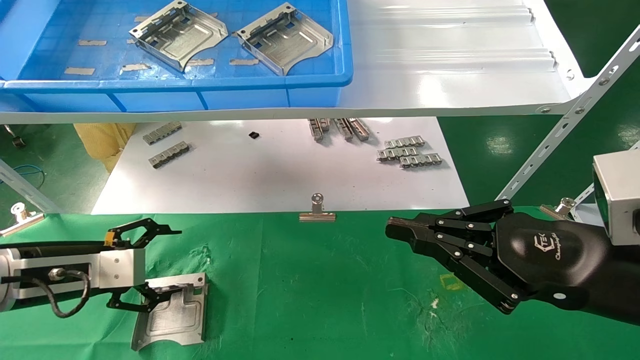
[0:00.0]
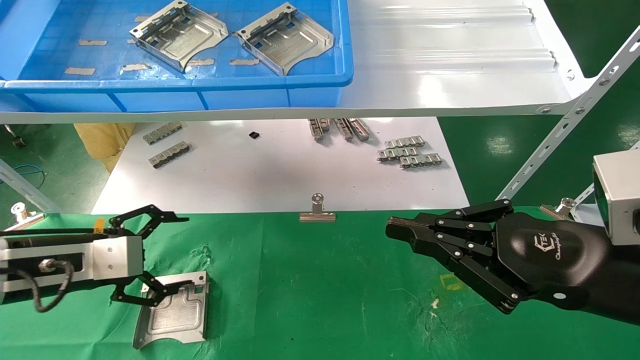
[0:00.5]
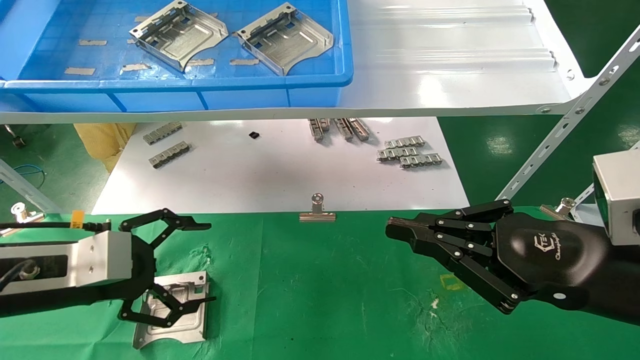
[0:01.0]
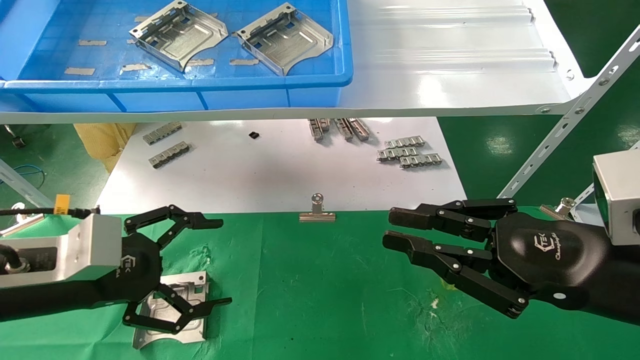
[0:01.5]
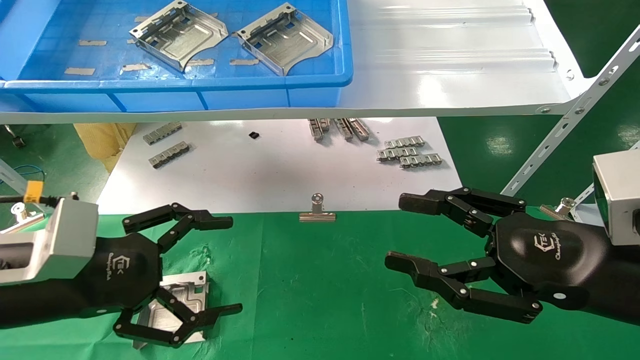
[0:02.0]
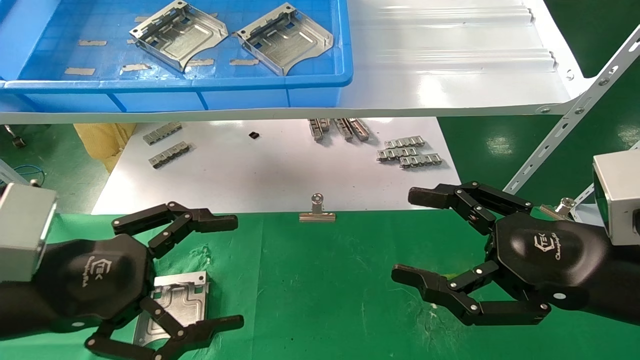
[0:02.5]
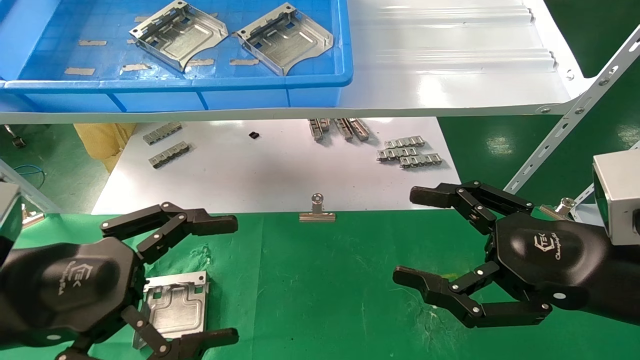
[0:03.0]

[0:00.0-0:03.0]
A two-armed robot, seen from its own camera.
Task of the whole recording: use the mechanical arm to pick up the parts and place them on the table.
0:00.0 to 0:01.5: The left gripper heads backward and to the right, covering about 10 cm.
0:01.5 to 0:03.0: The right gripper opens up. The left gripper moves backward, some 5 cm.

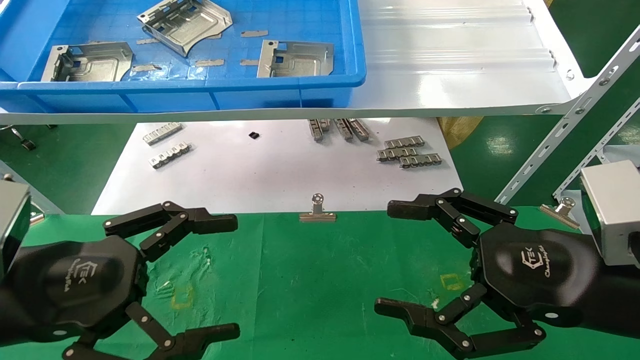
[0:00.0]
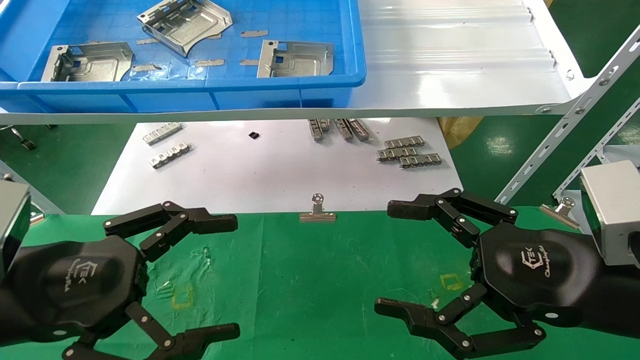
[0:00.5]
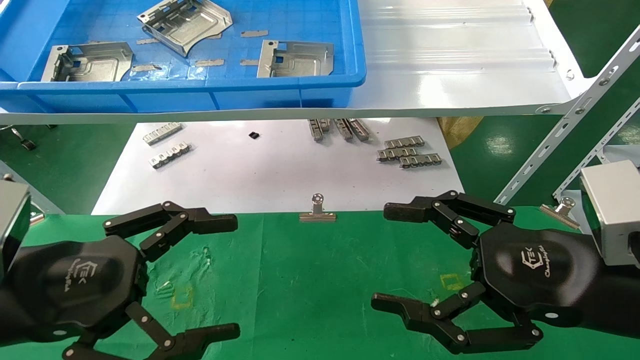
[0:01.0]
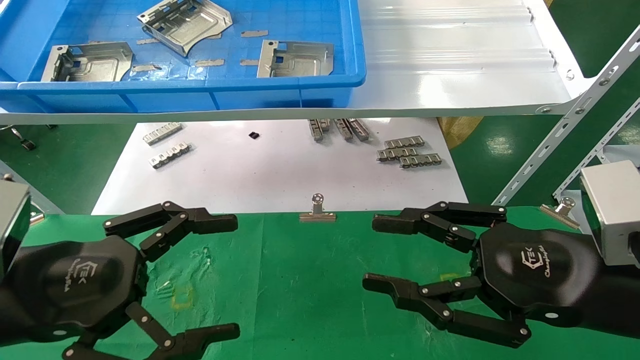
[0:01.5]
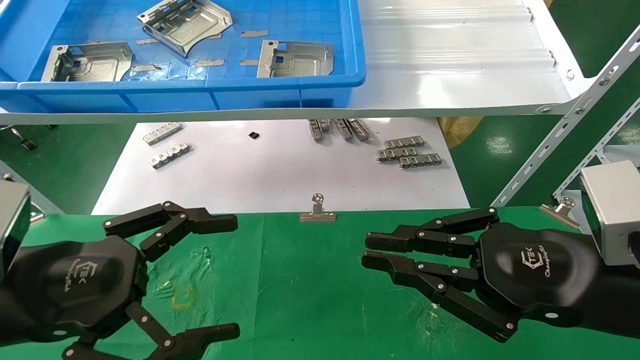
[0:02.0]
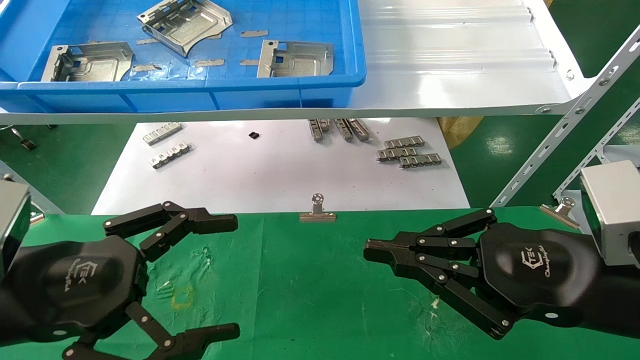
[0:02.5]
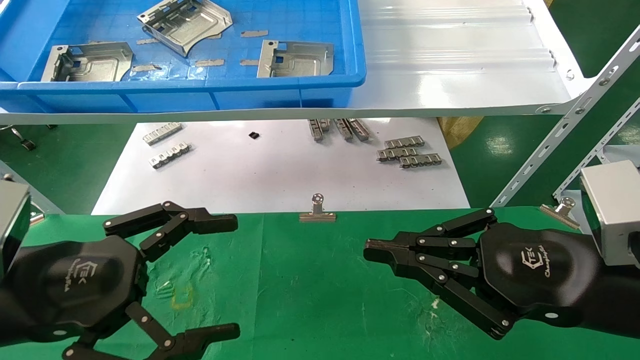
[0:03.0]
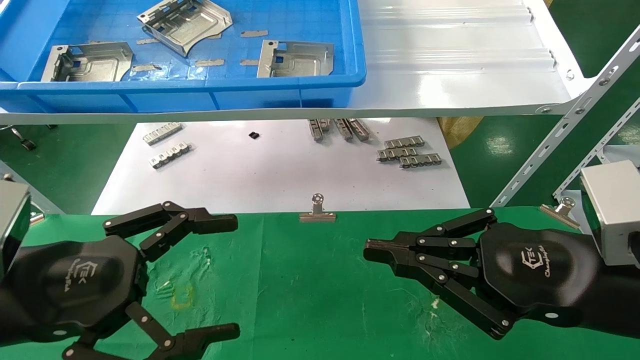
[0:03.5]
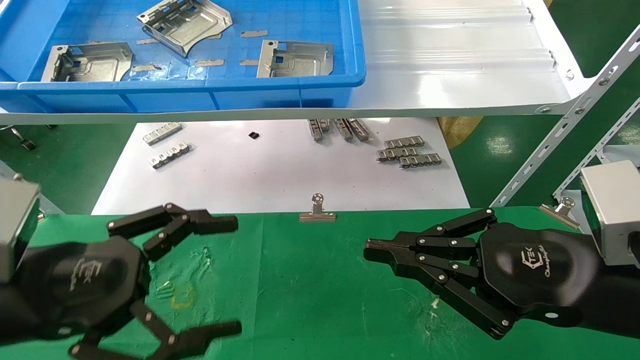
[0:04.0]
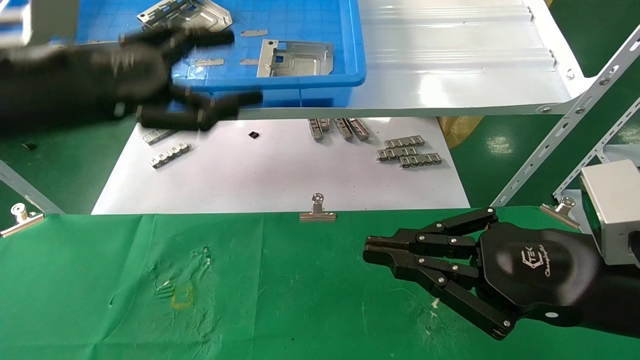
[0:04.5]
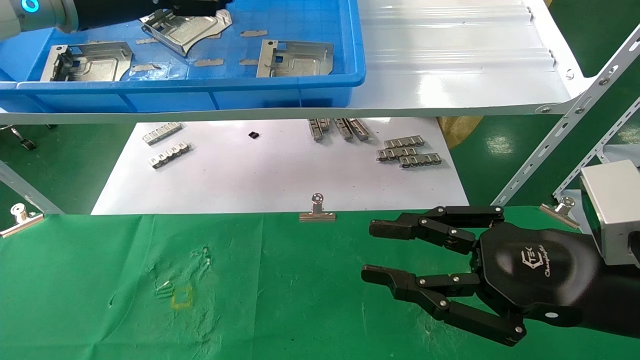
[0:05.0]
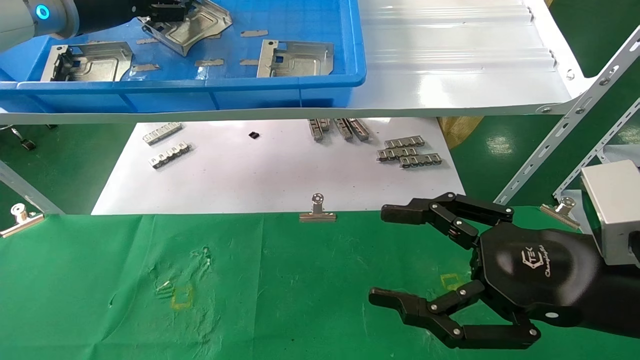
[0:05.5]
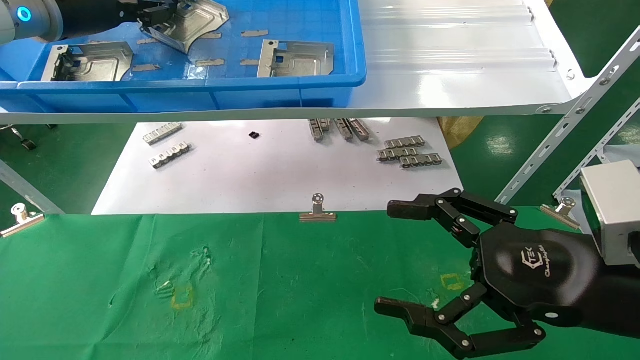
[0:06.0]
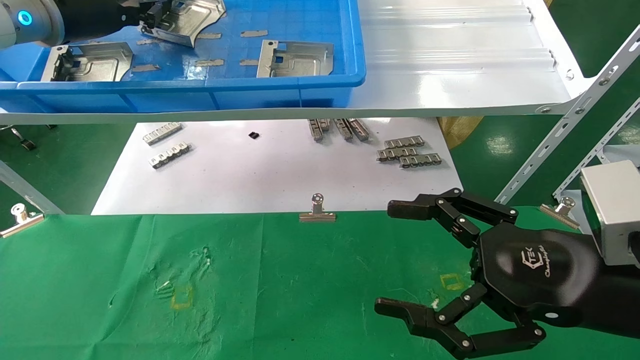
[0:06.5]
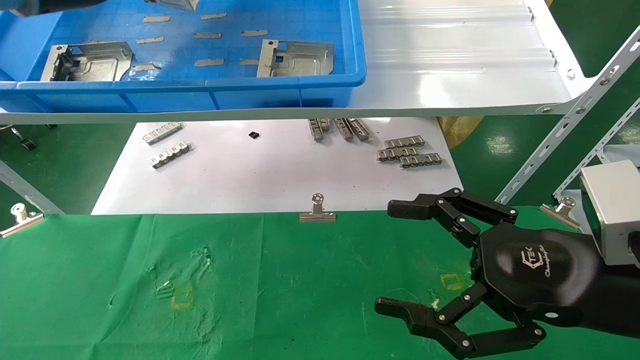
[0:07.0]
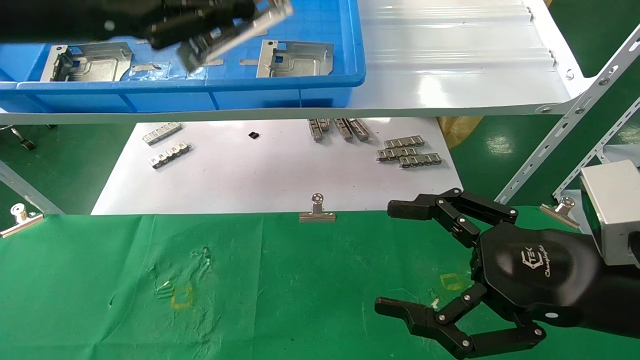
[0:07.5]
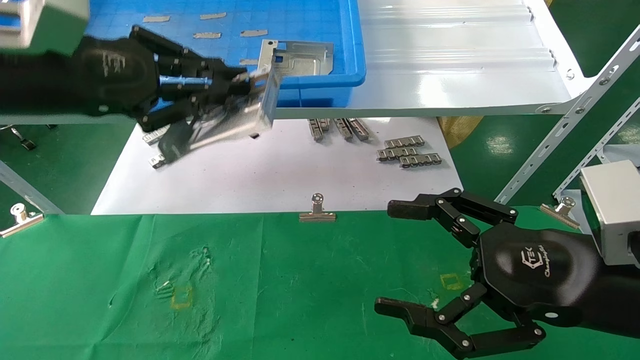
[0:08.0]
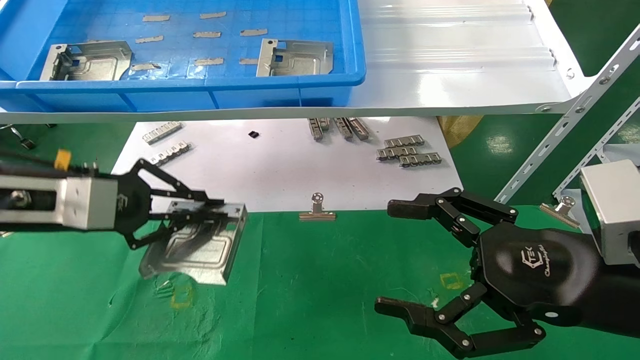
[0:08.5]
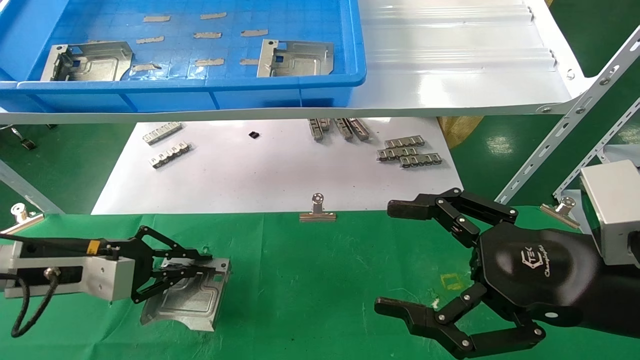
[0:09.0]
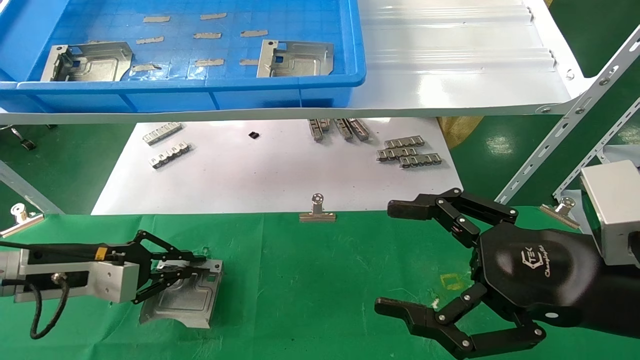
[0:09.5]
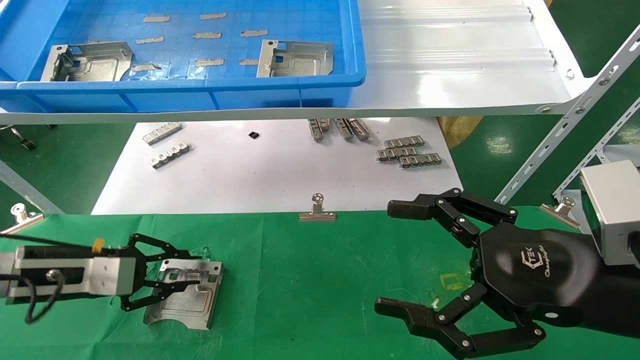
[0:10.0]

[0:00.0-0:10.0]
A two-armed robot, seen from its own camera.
Task of the whole recording: use the mechanical arm to pick up the parts and place them on the table.
Step, 0:04.5 to 0:06.5: Pick up the hard drive bracket from the feeding area.
Step, 0:07.0 to 0:09.5: Place the hard drive bracket into the box.
0:00.0 to 0:02.0: The right gripper closes.
0:02.0 to 0:04.0: The grippers move only a little.
0:04.0 to 0:06.0: The left gripper moves forward and upward, some 30 cm, and closes, while the right gripper opens its fingers.
0:06.0 to 0:08.0: The left gripper travels backward and downward by approximately 15 cm, and closes its fingers.
0:08.0 to 0:10.0: The left gripper travels downward by approximately 25 cm.

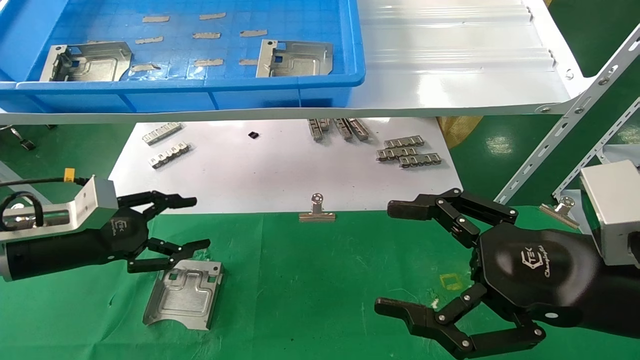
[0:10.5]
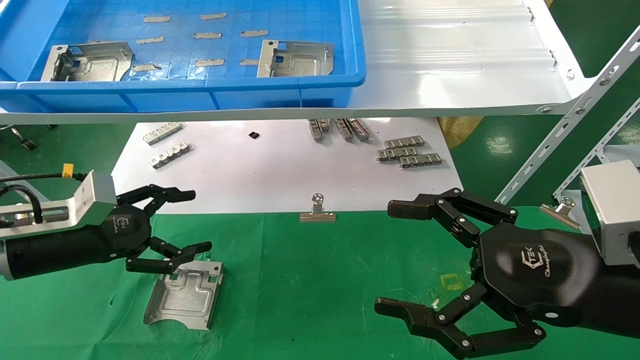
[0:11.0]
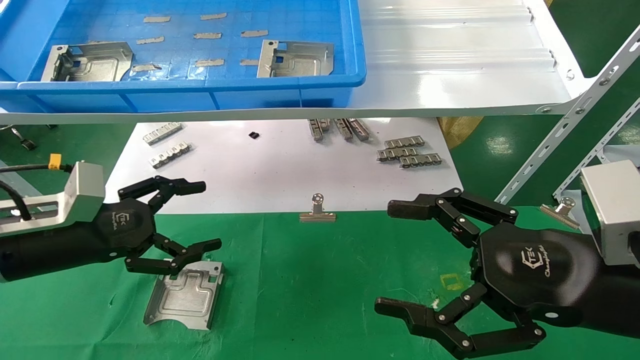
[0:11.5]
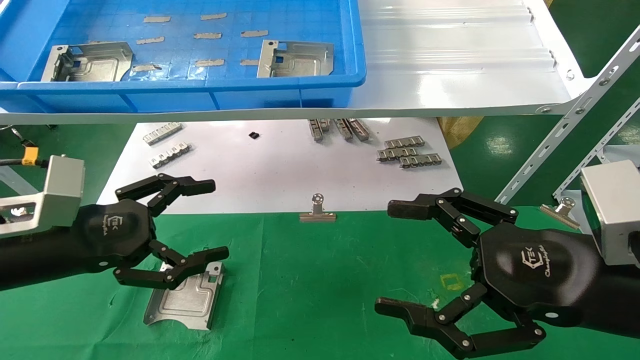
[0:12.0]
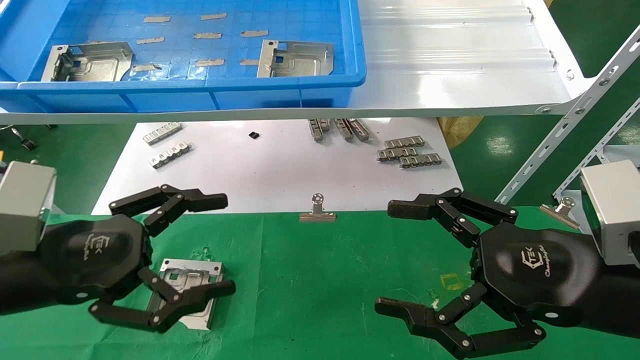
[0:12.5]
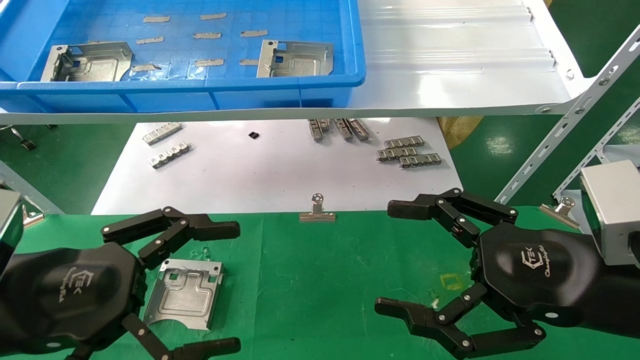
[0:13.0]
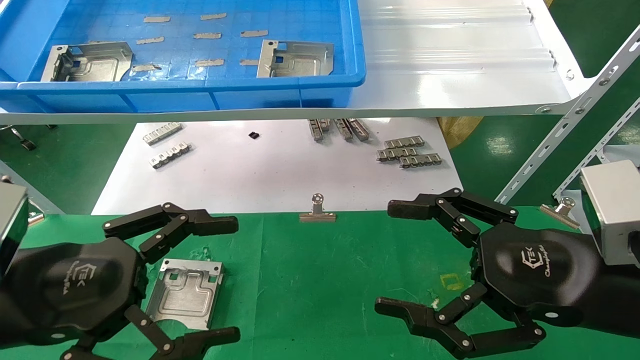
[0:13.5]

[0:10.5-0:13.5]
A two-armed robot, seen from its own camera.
Task of the whole recording: use the mechanical arm to pick up the parts and place them on the table.
0:10.5 to 0:12.0: The left gripper shifts about 5 cm backward, and opens its fingers.
0:12.0 to 0:13.5: The left gripper moves backward, some 10 cm.

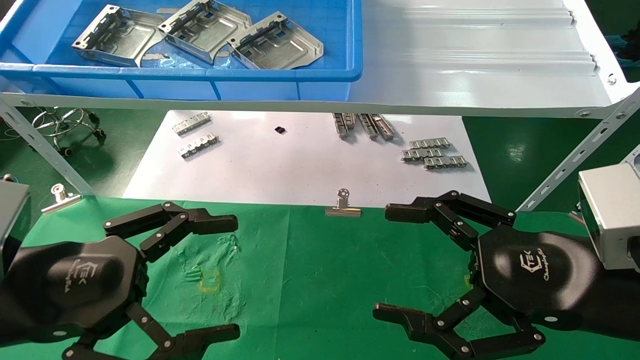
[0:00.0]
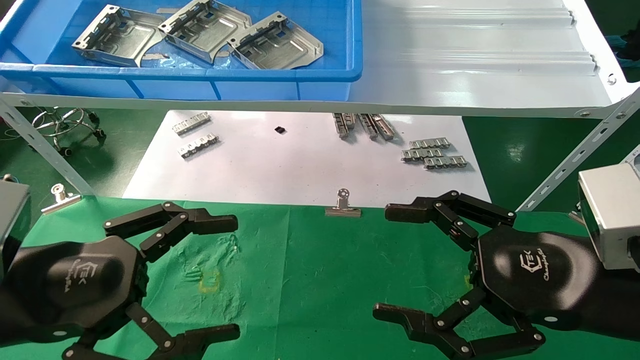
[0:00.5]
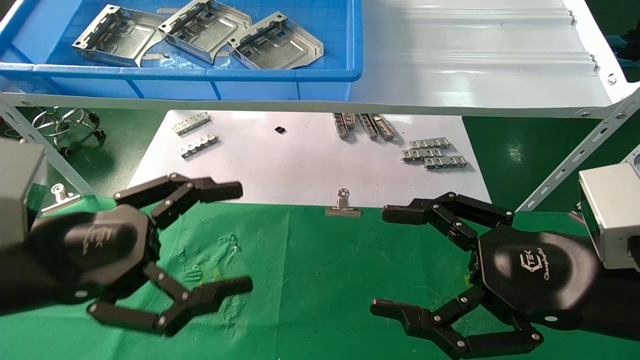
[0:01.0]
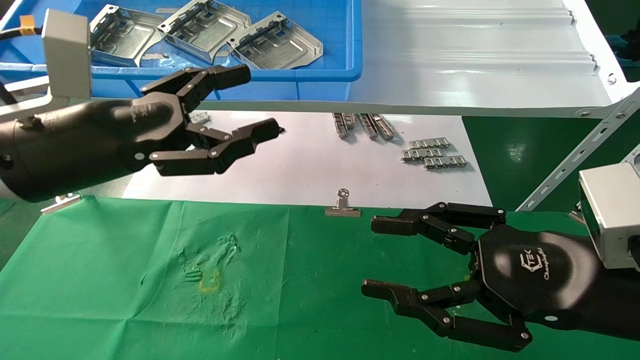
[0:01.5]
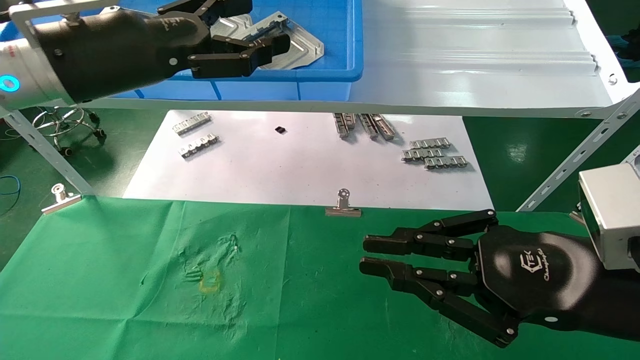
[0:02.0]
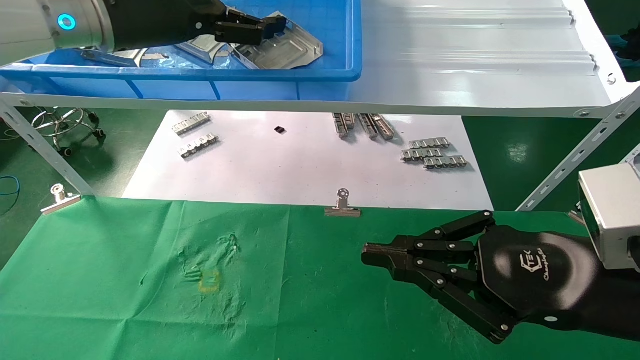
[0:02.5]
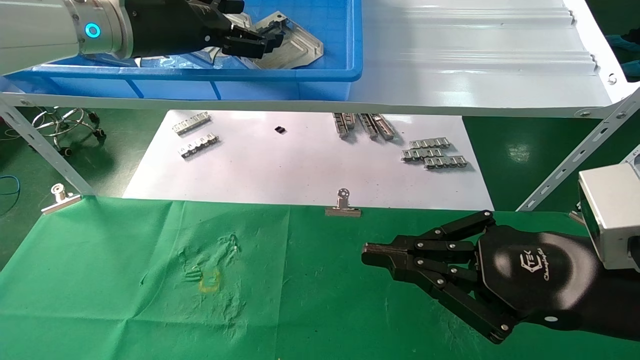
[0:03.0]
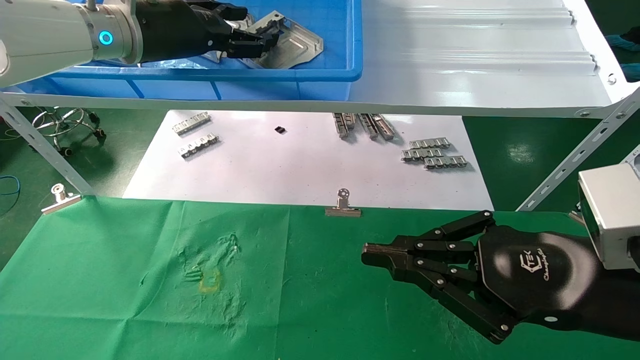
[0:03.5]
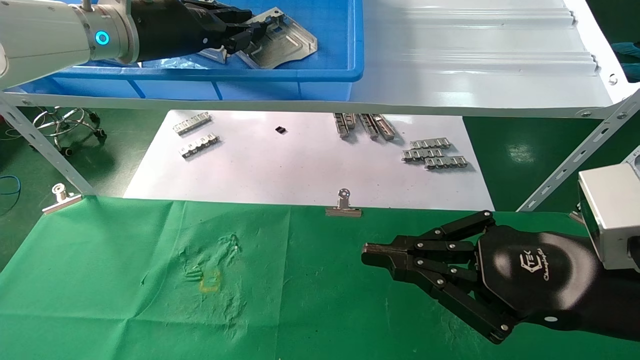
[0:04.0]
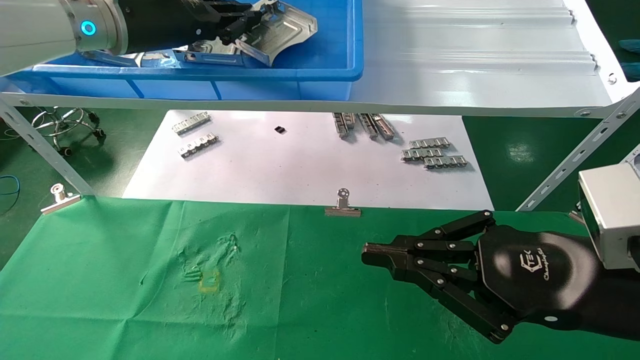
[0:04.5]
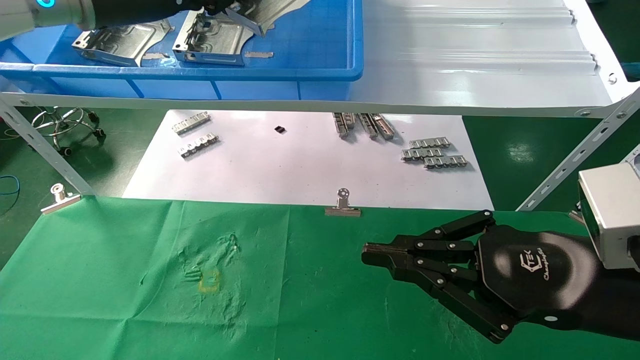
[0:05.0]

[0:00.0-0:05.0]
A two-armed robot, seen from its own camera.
Task of the whole recording: use the mechanical arm to pick up the parts and place them on the table.
Step, 0:01.5 to 0:04.0: Pick up the hard drive bracket from the feeding area.
0:00.0 to 0:02.5: The left gripper goes roughly 30 cm upward and forward. Meanwhile the right gripper closes its fingers.
0:02.5 to 0:05.0: The left gripper closes up.
